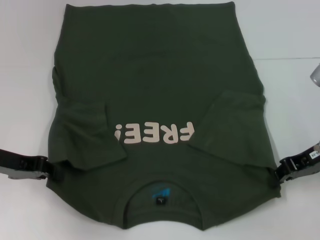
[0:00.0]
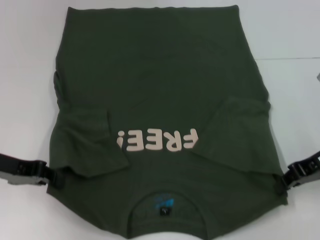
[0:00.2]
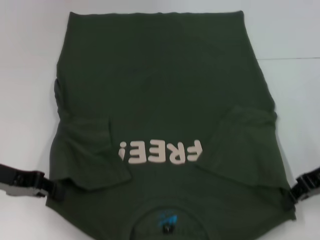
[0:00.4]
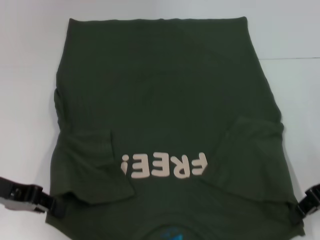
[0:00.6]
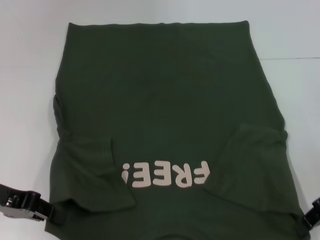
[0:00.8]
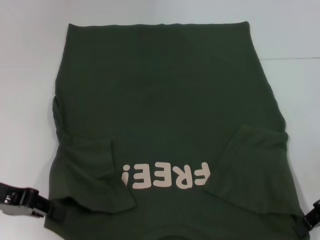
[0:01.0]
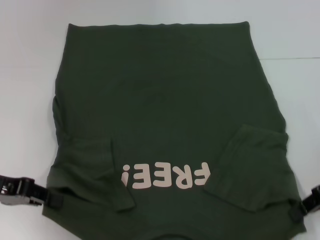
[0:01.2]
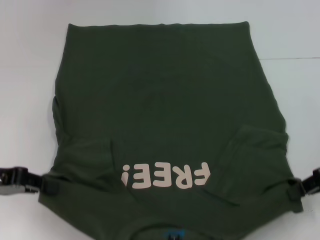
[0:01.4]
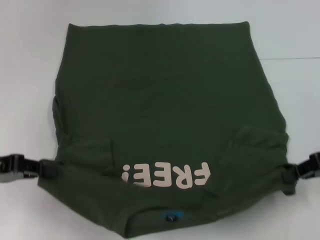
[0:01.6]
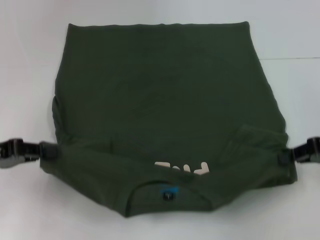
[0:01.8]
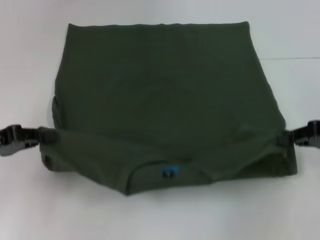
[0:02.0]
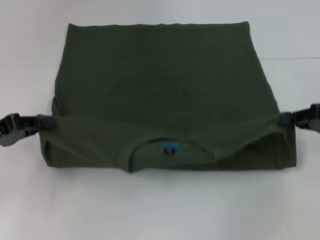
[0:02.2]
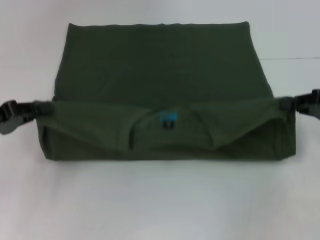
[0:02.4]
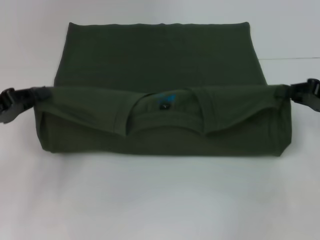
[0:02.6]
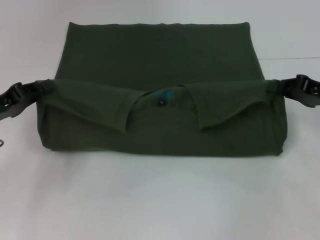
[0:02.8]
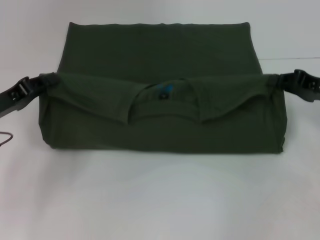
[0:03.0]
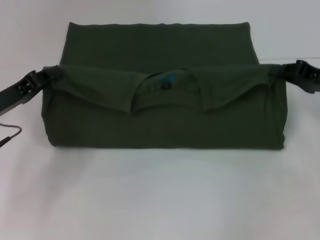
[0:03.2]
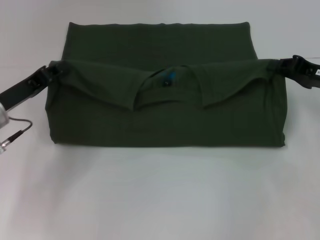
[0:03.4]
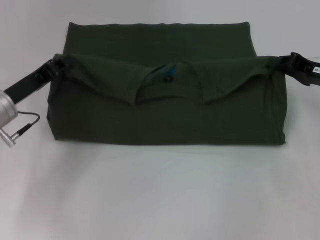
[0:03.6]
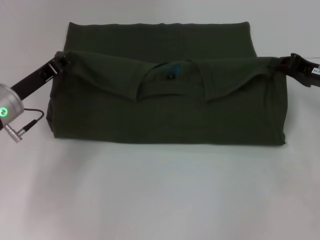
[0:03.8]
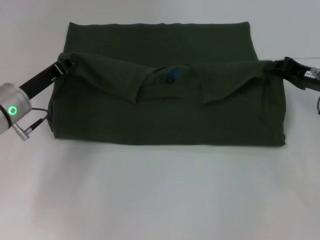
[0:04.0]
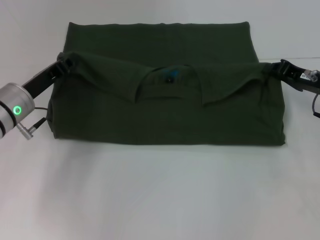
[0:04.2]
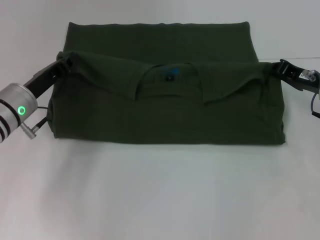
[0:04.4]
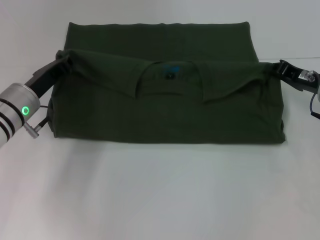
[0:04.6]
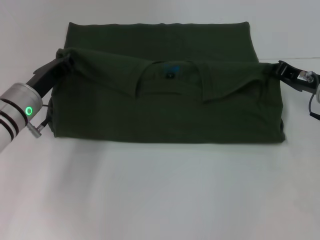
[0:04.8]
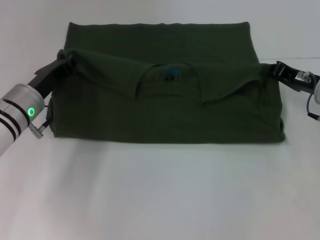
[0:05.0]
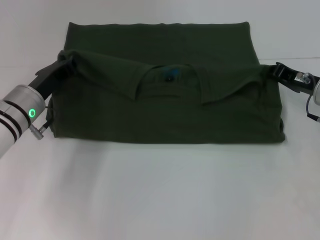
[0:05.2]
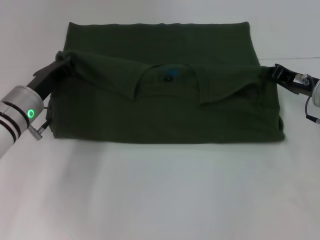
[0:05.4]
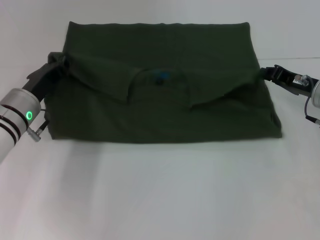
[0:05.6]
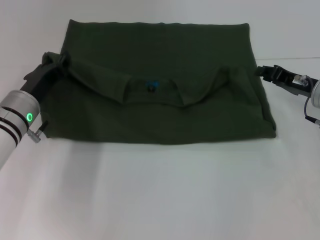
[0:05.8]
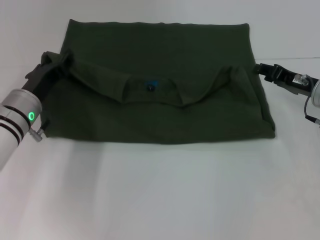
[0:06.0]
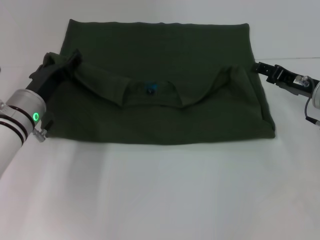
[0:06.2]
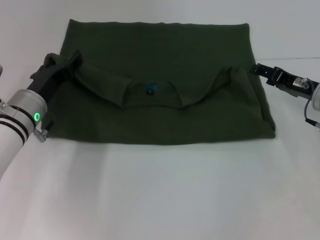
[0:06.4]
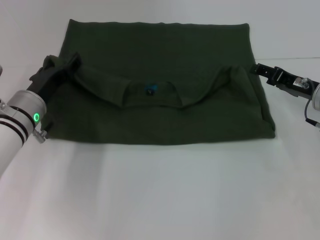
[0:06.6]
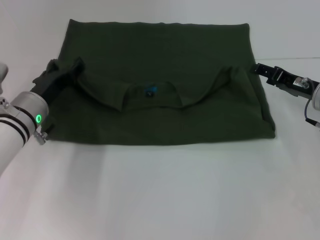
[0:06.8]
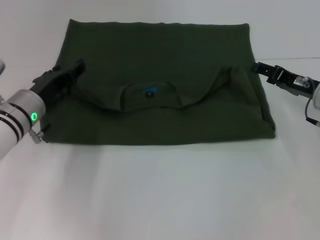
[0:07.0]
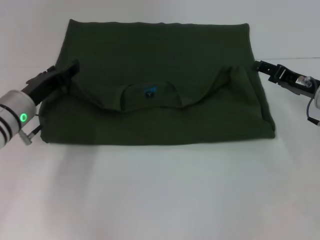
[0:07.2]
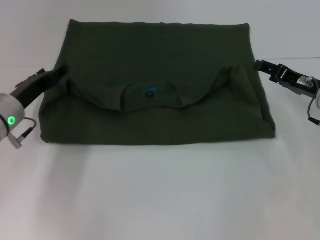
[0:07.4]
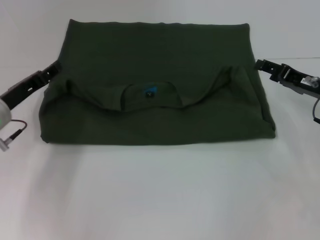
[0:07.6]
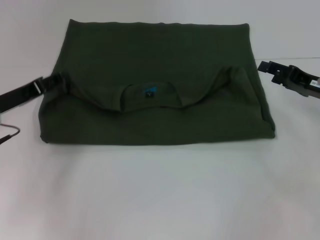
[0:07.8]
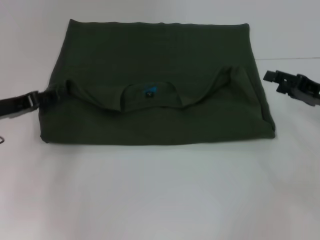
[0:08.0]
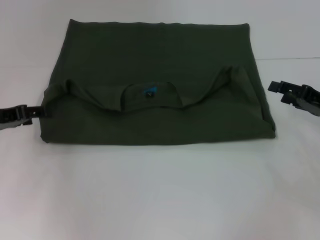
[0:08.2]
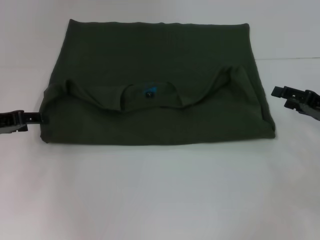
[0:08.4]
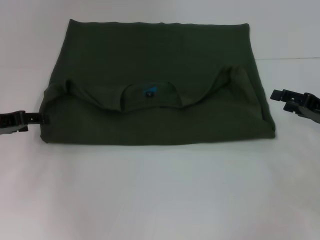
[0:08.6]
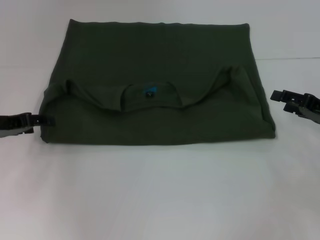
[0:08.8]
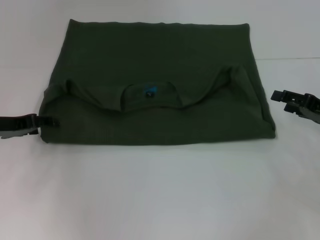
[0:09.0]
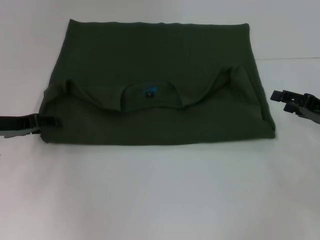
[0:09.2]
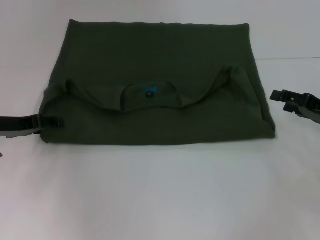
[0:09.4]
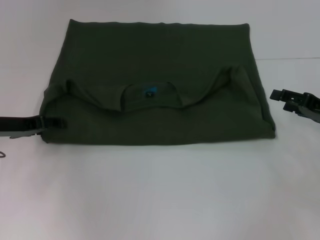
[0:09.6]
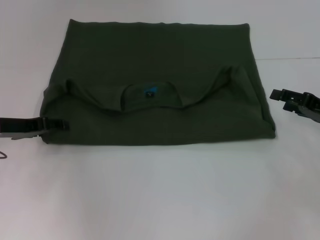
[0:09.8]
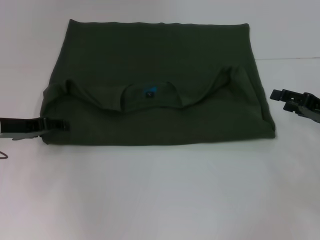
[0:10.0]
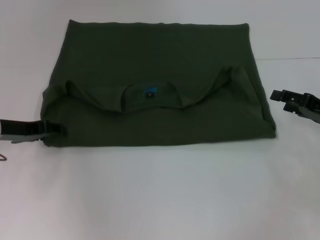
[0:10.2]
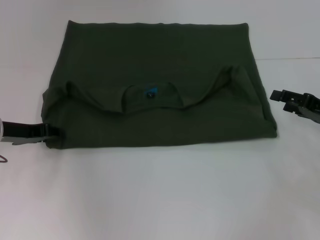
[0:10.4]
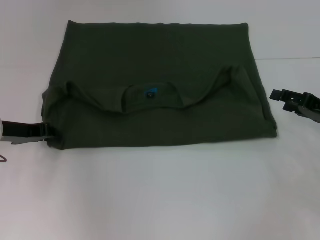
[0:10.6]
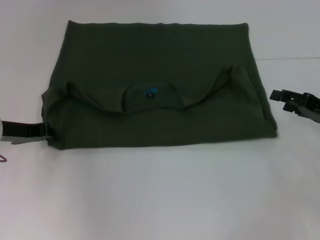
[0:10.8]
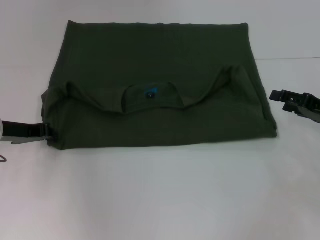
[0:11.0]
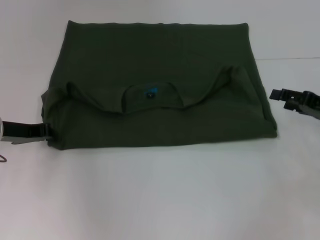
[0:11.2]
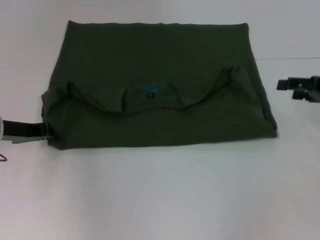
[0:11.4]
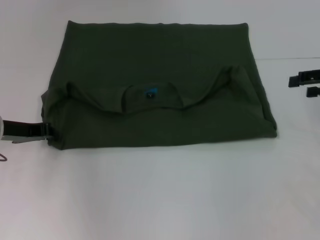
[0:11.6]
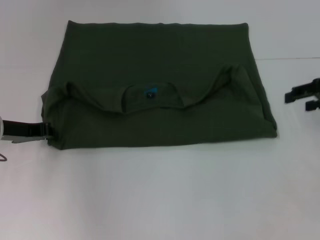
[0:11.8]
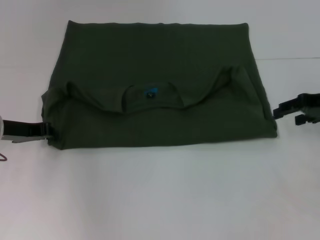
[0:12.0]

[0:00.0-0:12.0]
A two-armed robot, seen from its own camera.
Step, 0.0 to 8.0 s: Fold the clothes with your left hand.
Step, 0.0 to 8.0 s: Fold the clothes with your right hand.
0.0 to 1.6 s: The left gripper ends up some 5 cm from where it was, while the right gripper ends up approximately 5 cm from where it was.
1.6 to 3.0 s: The left gripper ends up about 5 cm from where it was; the right gripper changes place by some 5 cm.
3.0 to 4.4 s: The left gripper heads to the right and forward, covering about 10 cm.
4.4 to 6.0 s: There are only small adjustments of the grippers.
6.0 to 7.6 s: The left gripper goes about 5 cm to the left, and opens, while the right gripper opens up.
7.6 to 9.0 s: The right gripper shifts by approximately 5 cm.
9.0 to 10.4 s: The grippers make only small movements.
10.4 to 12.0 s: The right gripper shifts approximately 10 cm upward and forward.

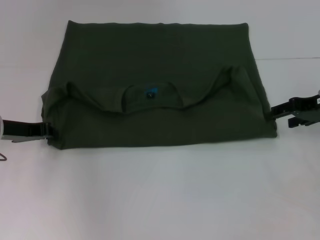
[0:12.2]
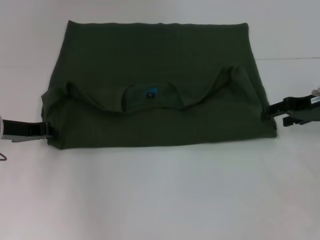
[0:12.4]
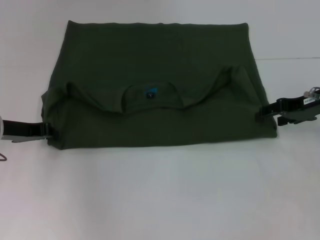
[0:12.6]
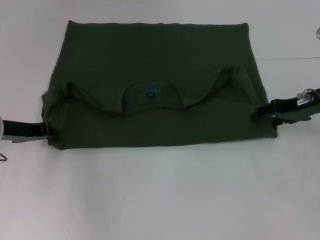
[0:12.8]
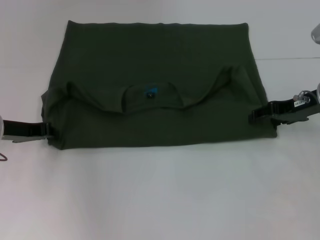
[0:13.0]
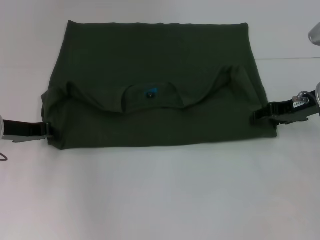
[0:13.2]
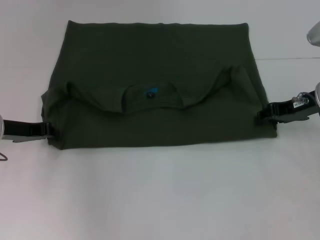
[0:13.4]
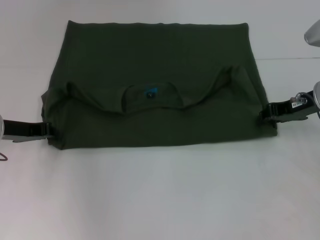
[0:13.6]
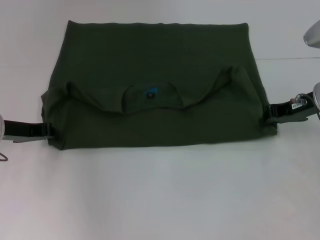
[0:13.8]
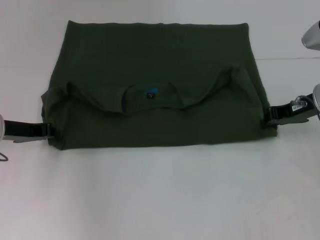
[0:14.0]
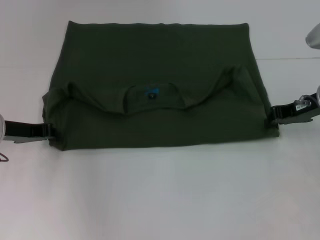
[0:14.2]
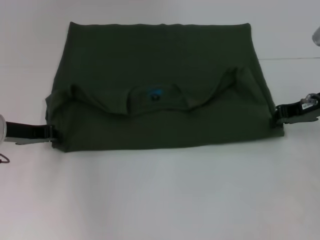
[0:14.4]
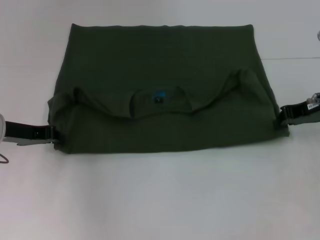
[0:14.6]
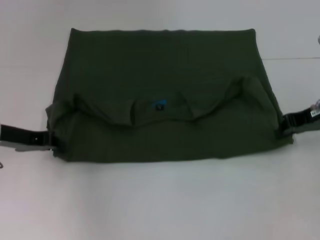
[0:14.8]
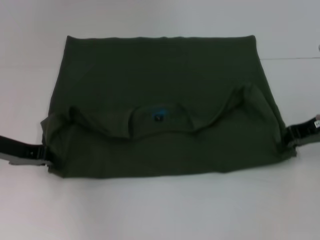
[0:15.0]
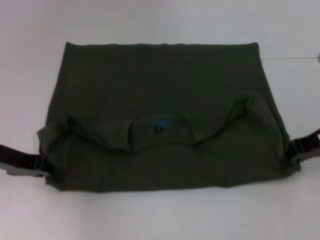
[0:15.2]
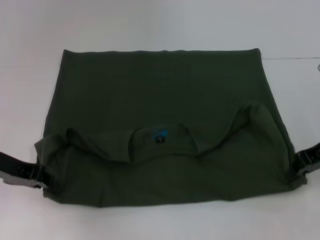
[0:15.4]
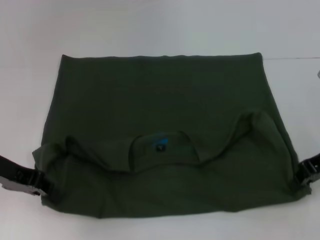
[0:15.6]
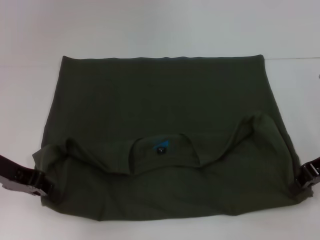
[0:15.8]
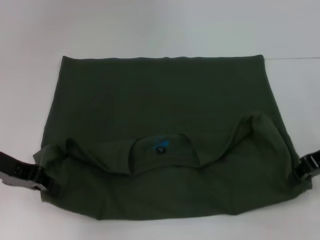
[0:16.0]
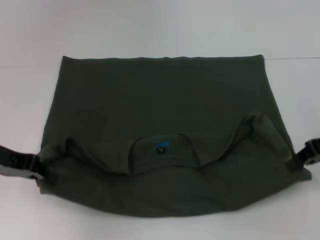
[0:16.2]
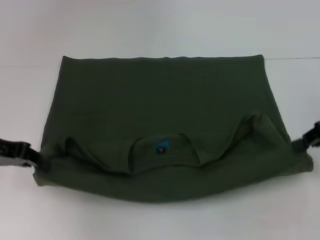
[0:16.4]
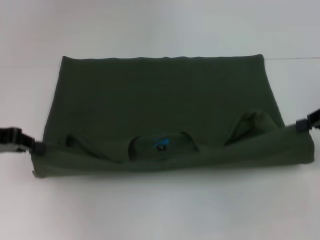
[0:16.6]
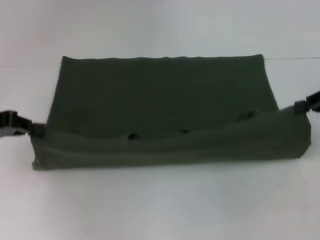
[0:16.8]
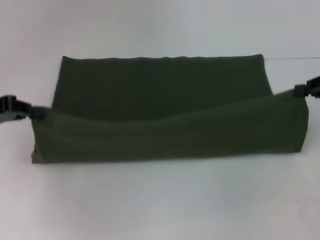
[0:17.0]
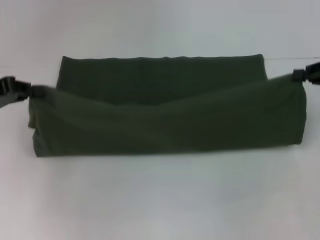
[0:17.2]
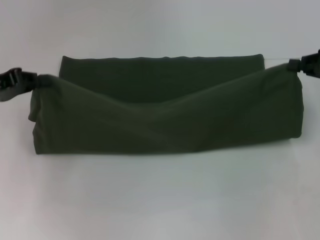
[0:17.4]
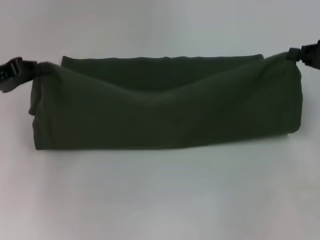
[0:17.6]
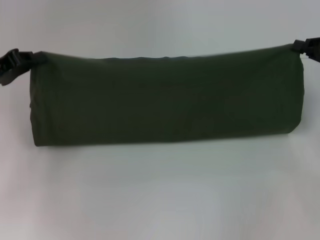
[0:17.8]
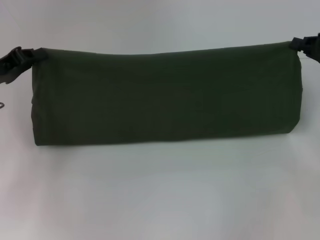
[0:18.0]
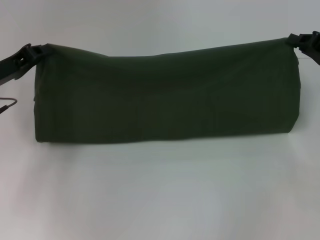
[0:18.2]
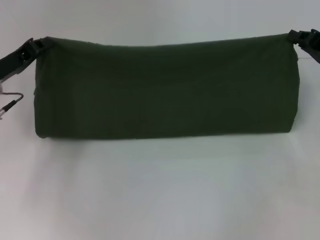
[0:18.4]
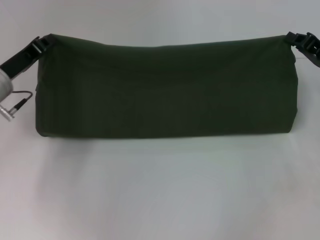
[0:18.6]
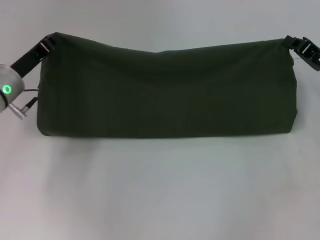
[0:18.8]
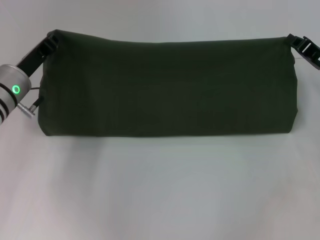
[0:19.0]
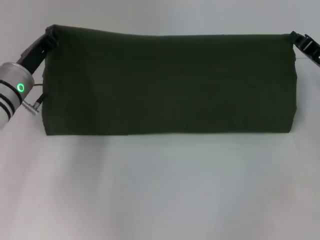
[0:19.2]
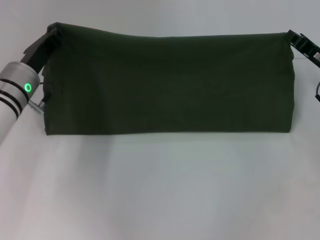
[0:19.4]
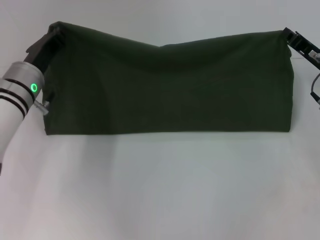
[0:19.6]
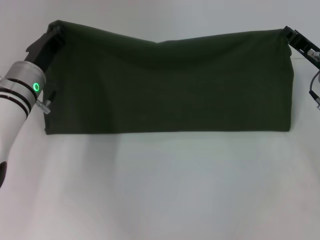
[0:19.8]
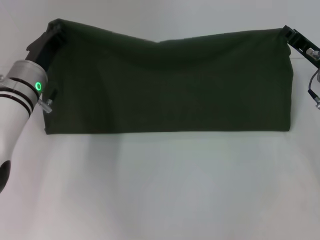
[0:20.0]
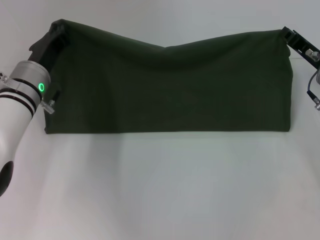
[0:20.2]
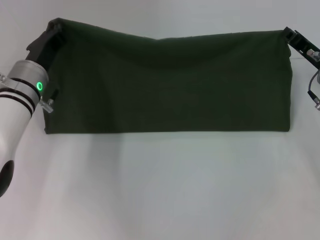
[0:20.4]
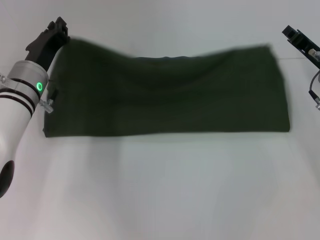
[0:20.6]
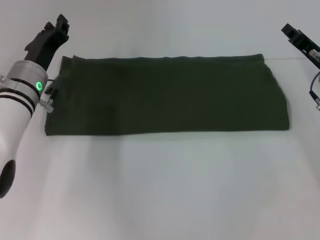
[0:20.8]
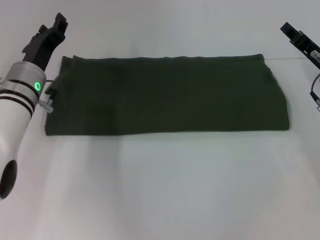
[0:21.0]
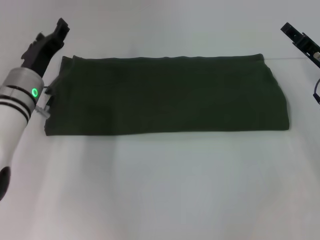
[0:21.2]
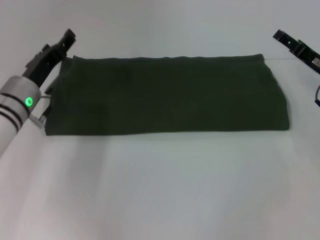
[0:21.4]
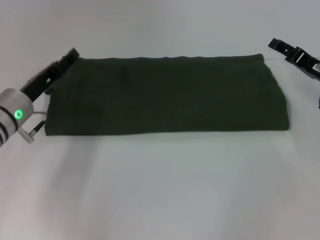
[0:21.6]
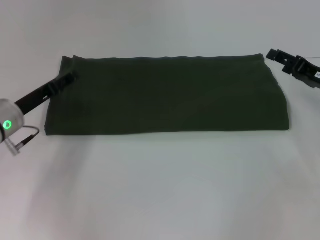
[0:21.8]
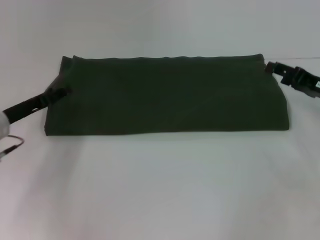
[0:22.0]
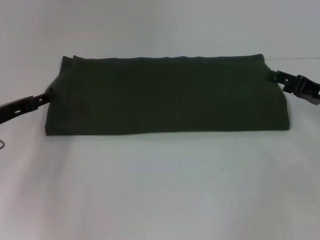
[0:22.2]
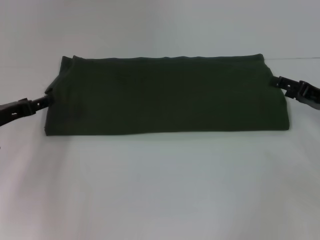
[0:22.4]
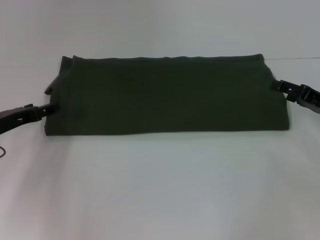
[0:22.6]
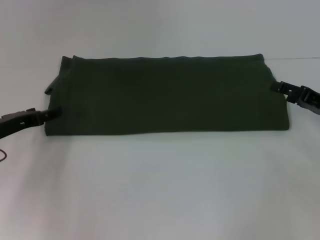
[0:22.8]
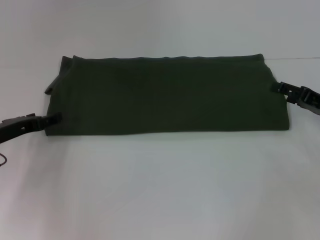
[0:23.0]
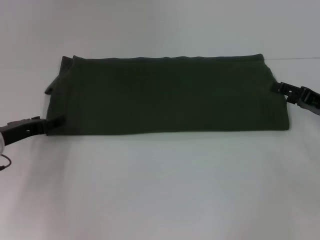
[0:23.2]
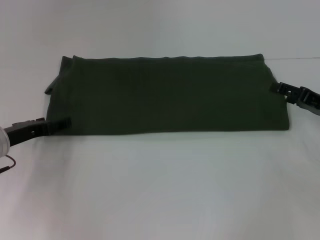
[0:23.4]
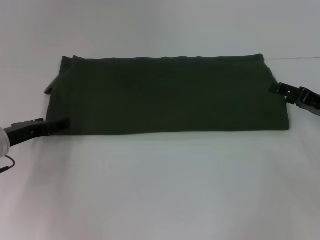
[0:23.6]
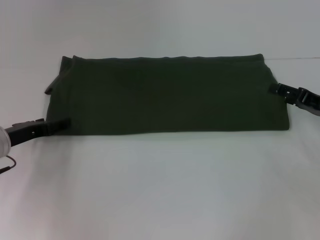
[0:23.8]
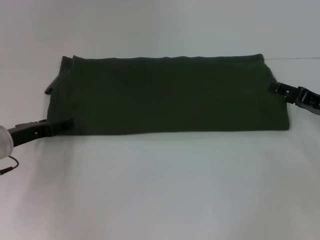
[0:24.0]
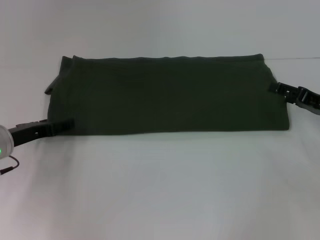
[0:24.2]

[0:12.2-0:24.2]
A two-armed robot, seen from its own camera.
Step, 12.2 to 16.0 s: Pull the clothes with your left hand.
Step, 12.2 to 16.0 s: Pull the clothes with your right hand.
Step, 16.2 to 21.0 s: Fold the clothes with your left hand.
Step, 16.2 to 21.0 s: Fold the clothes with your right hand.
12.2 to 13.8 s: The right gripper closes its fingers.
15.2 to 16.6 s: The right gripper heads to the right, covering about 5 cm; the left gripper moves some 5 cm.
16.6 to 18.2 s: The right gripper changes place by approximately 5 cm. Meanwhile the left gripper shifts by some 5 cm.
18.2 to 19.8 s: The left gripper shifts some 10 cm to the right. The right gripper changes place by about 5 cm.
19.8 to 21.2 s: The right gripper opens its fingers; the left gripper opens.
21.2 to 22.6 s: The left gripper is displaced to the left and backward by roughly 10 cm, and opens up; the right gripper shifts by about 5 cm, and opens.
22.6 to 24.2 s: The grippers move only a little.
